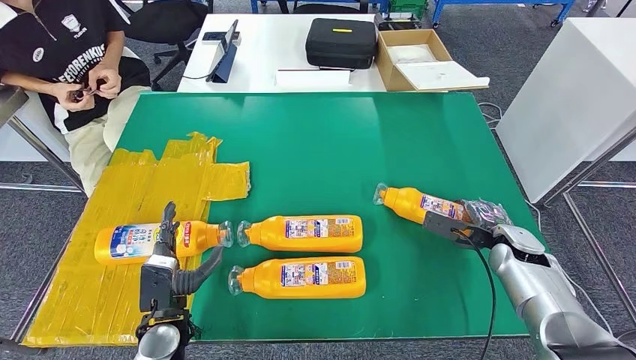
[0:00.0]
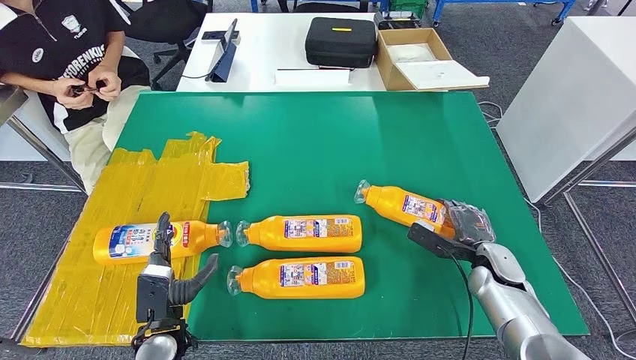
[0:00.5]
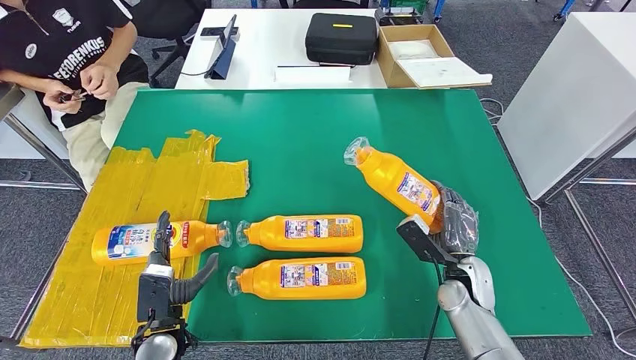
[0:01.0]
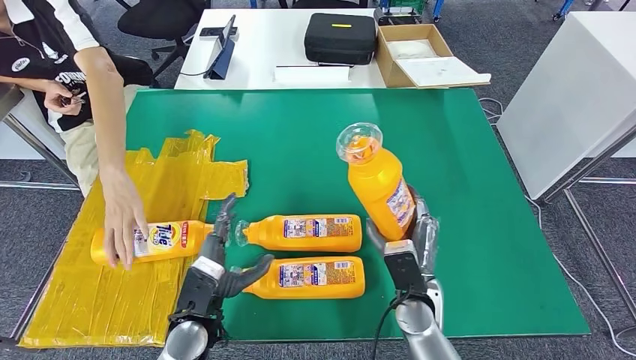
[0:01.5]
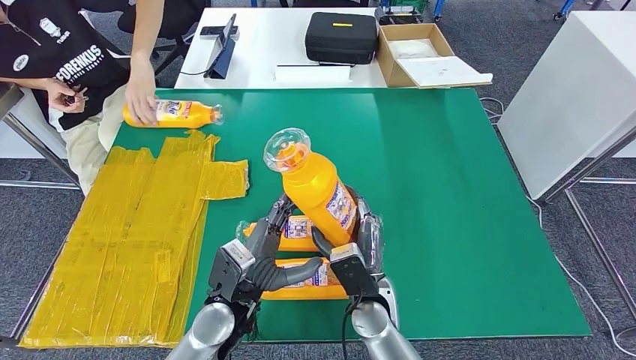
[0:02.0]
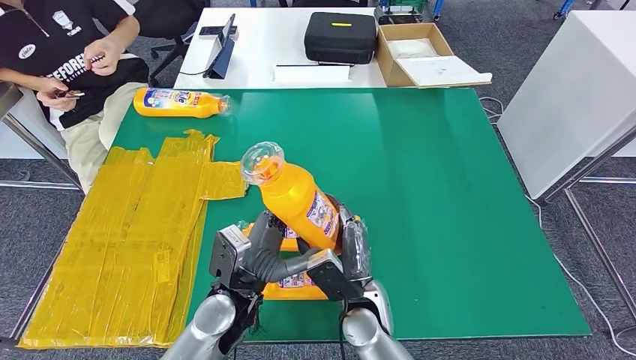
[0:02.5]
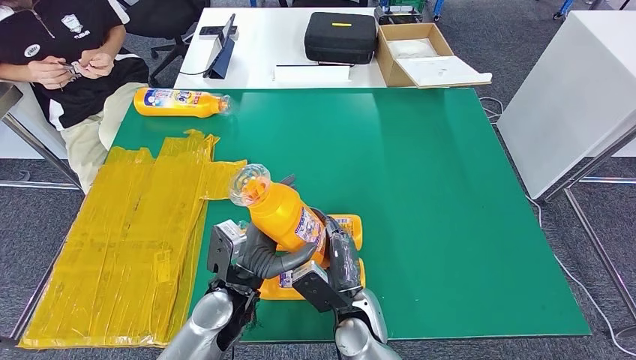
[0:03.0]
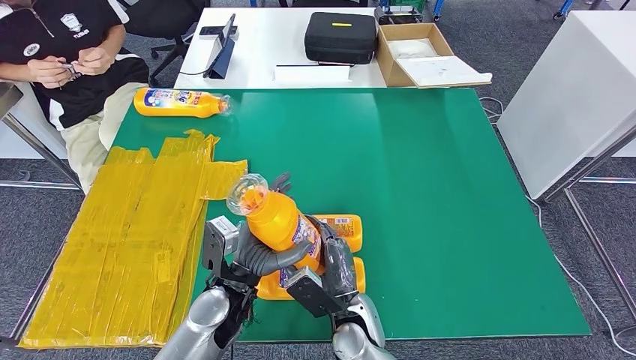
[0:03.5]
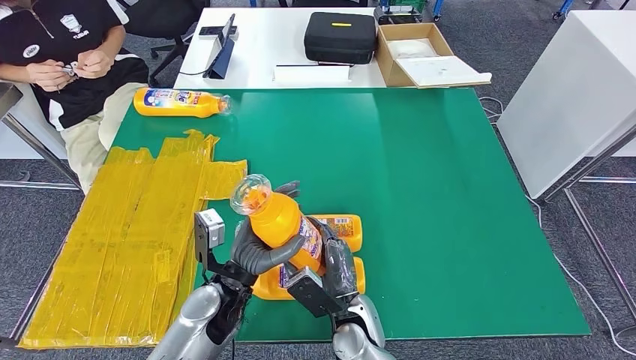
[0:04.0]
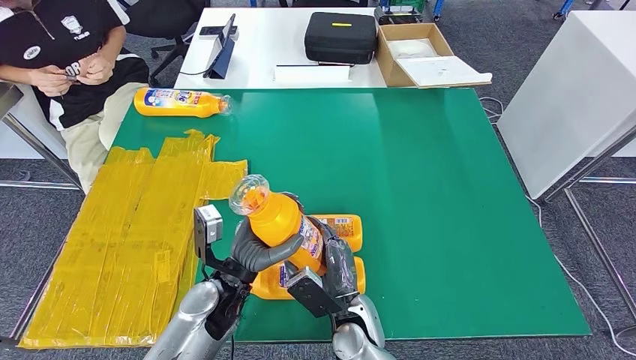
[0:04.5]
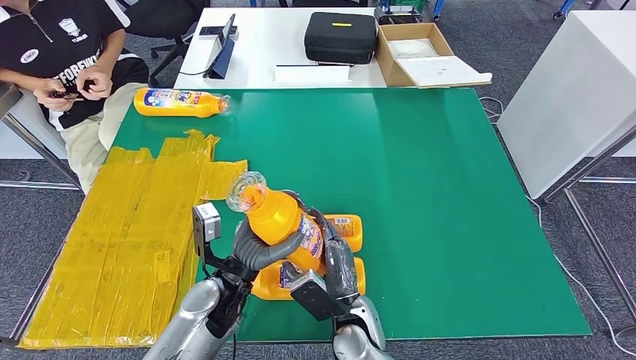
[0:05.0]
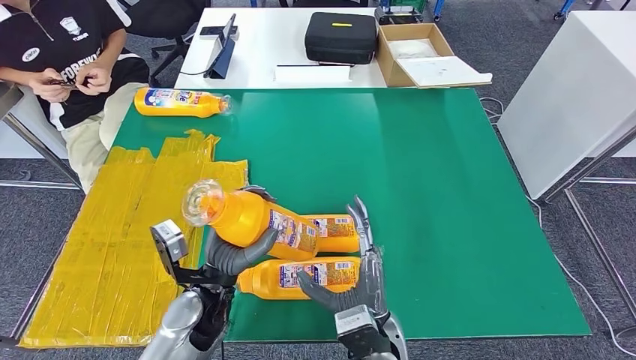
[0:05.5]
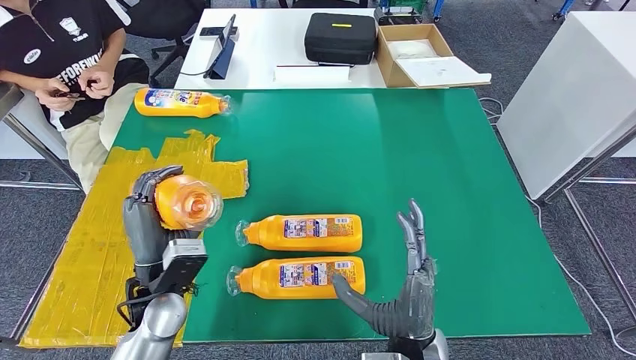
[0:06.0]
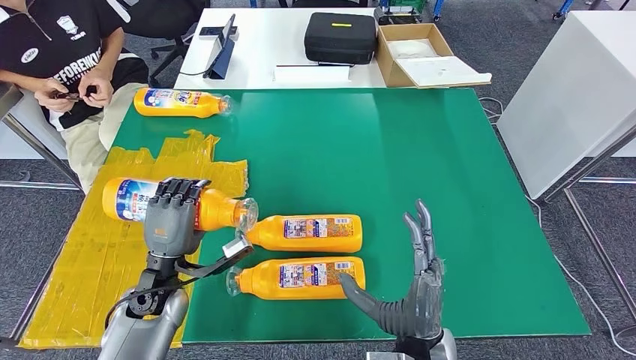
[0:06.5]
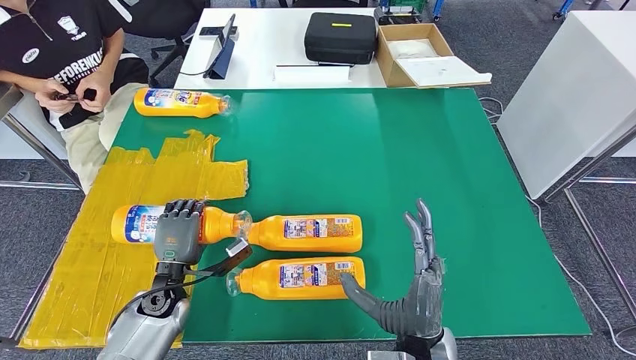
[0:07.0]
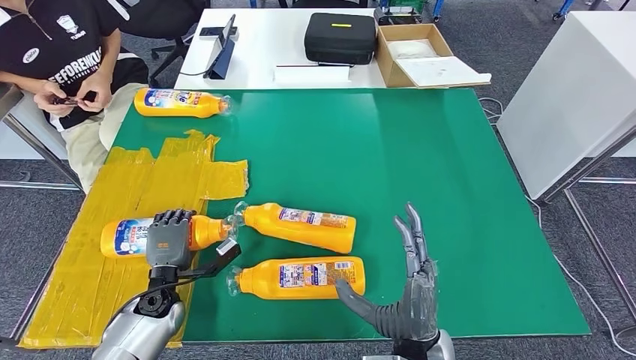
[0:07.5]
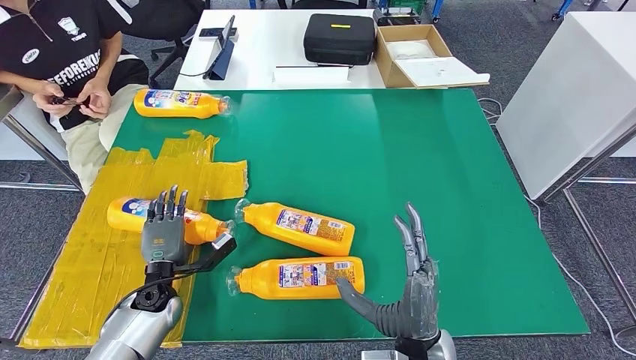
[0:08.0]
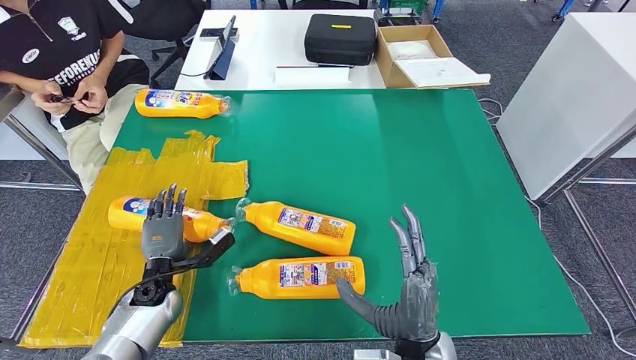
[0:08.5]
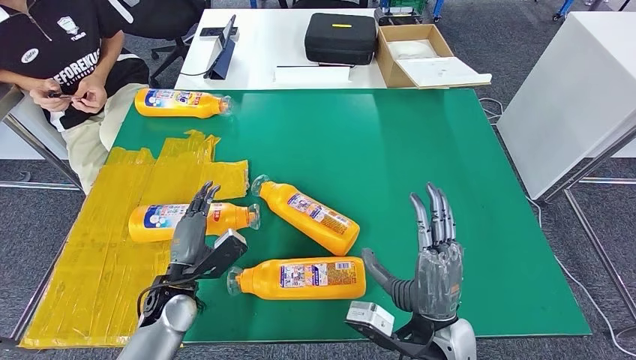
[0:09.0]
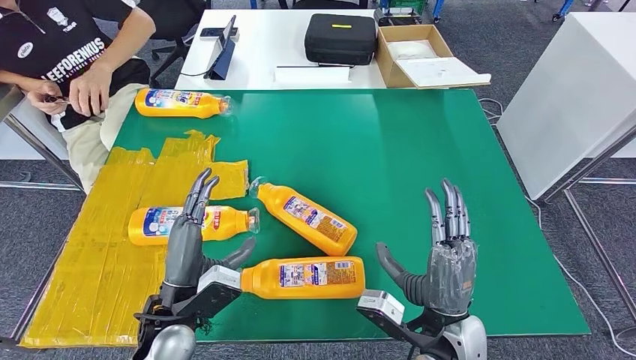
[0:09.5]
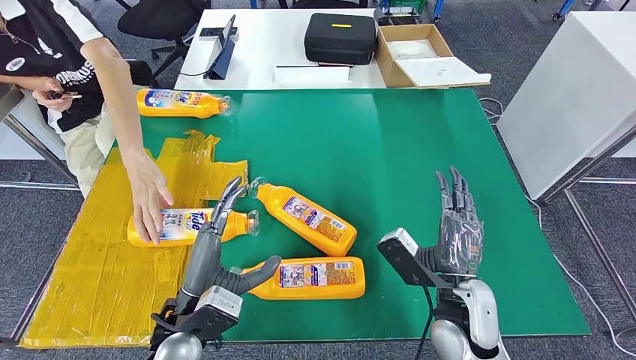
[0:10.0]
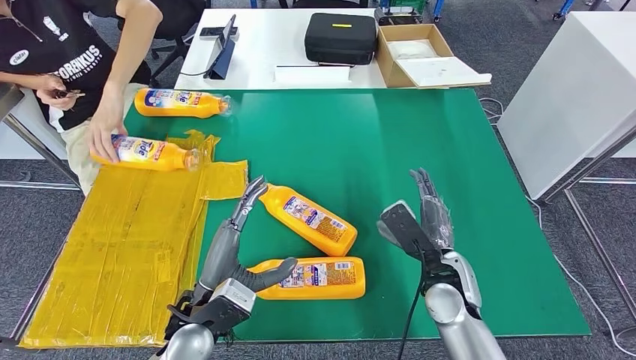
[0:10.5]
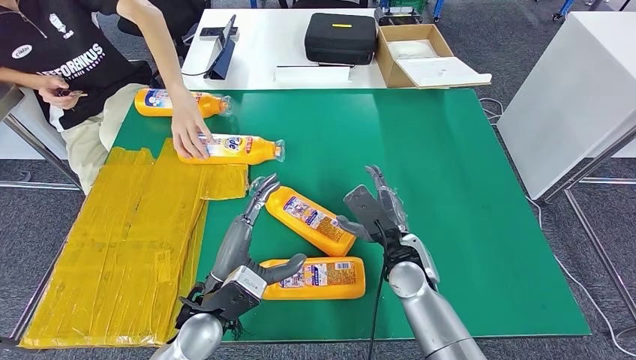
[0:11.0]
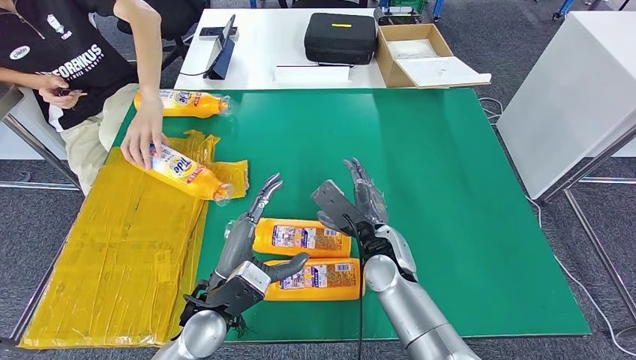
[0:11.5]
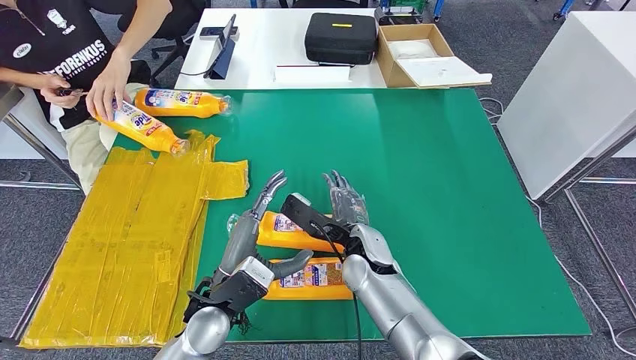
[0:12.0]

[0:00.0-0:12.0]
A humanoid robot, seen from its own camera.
Step, 0:00.0 to 0:02.0: Pick up the fast-moving consumer goods bottle from the table.
Step, 0:02.5 to 0:07.5: Flip the fast-moving consumer goods bottle to the front side.
0:02.0 to 0:04.0: The right hand changes place by some 5 cm.
0:04.0 to 0:06.0: The left hand moves to the left, some 10 cm. Meanwhile the right hand goes approximately 10 cm upward, to the right and backward.
0:06.0 to 0:08.0: The left hand goes approximately 15 cm downward and to the left.

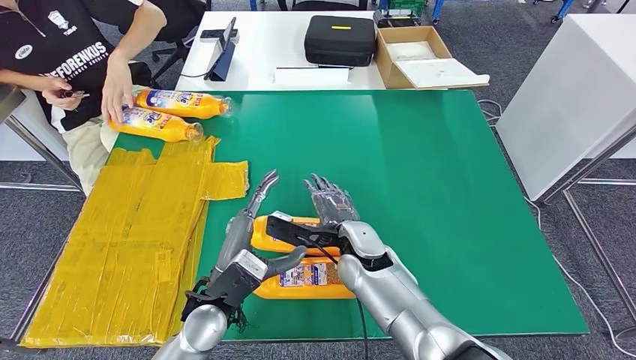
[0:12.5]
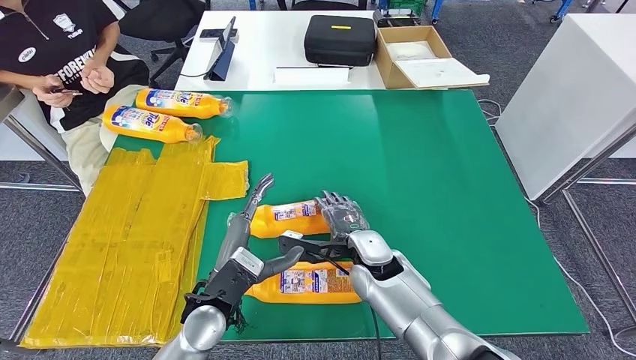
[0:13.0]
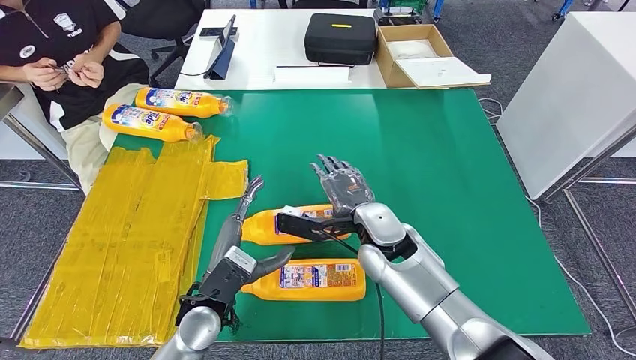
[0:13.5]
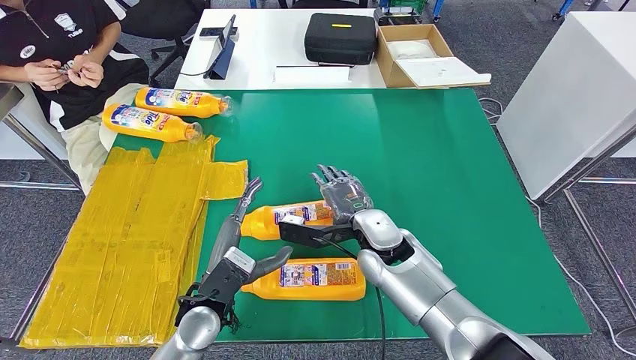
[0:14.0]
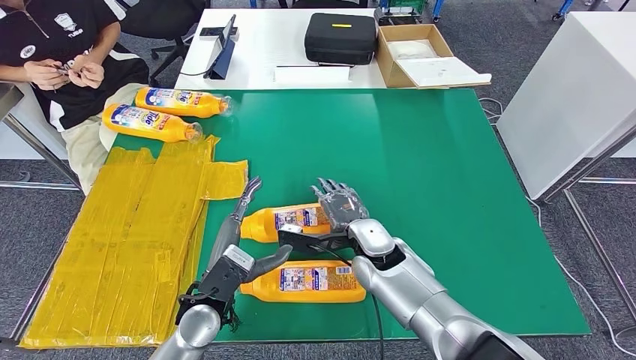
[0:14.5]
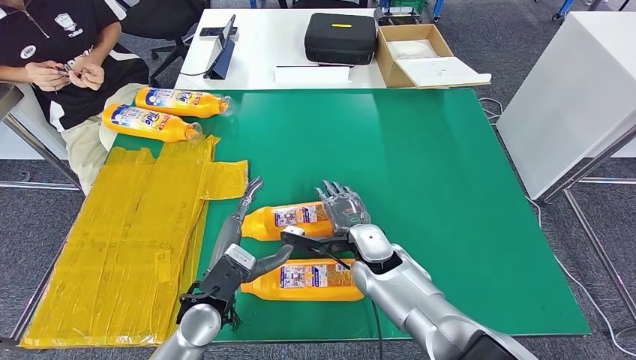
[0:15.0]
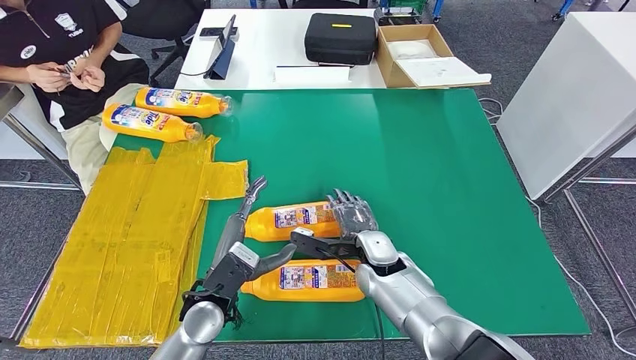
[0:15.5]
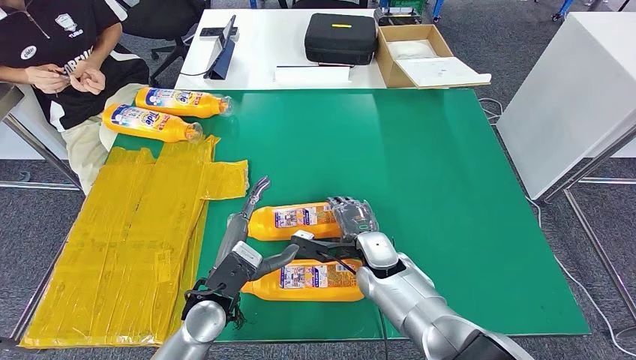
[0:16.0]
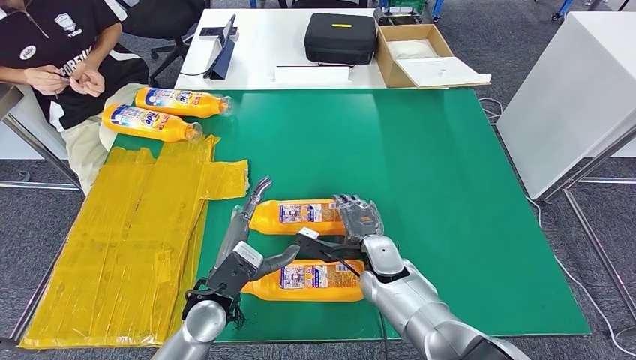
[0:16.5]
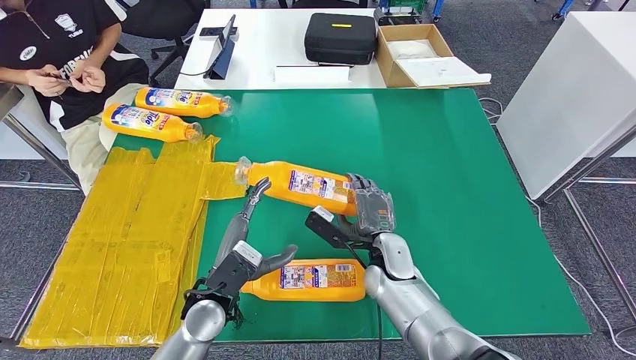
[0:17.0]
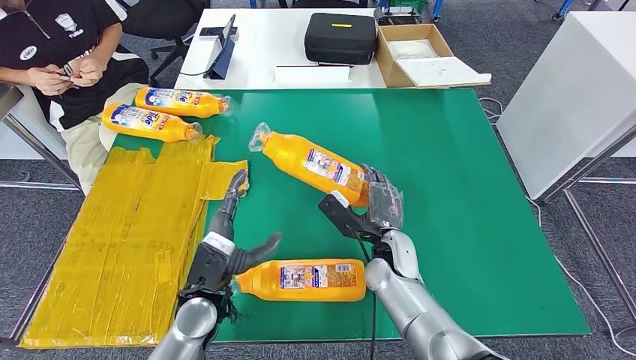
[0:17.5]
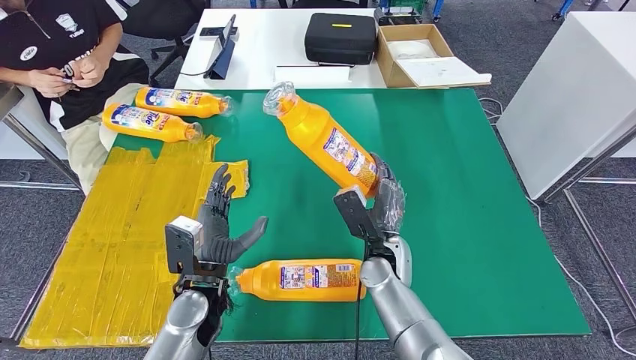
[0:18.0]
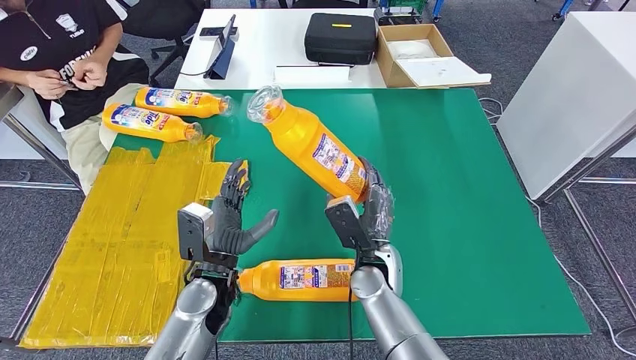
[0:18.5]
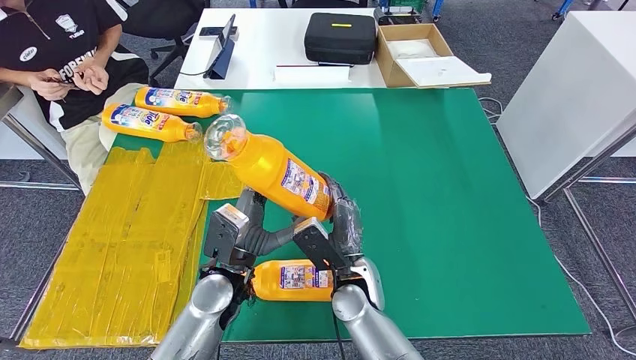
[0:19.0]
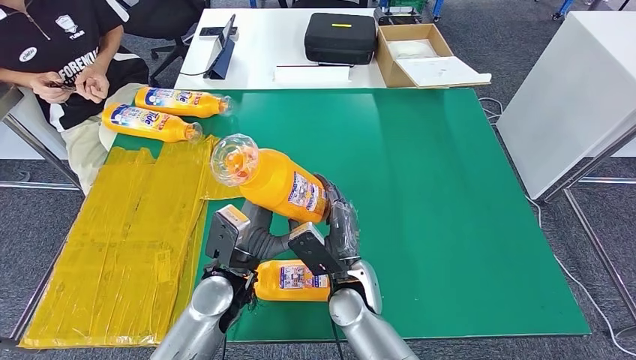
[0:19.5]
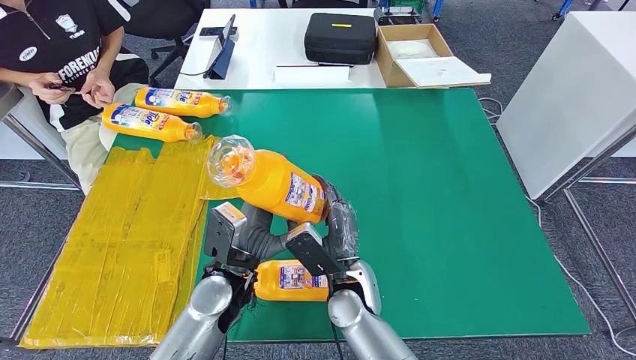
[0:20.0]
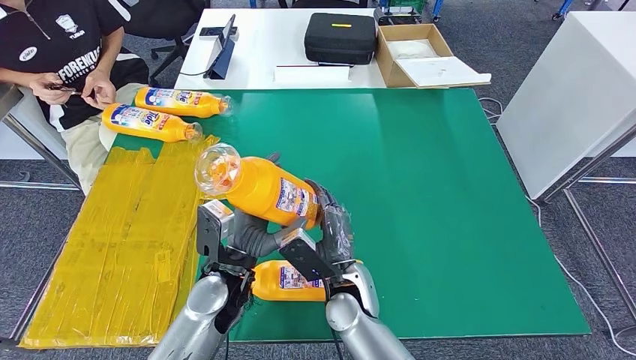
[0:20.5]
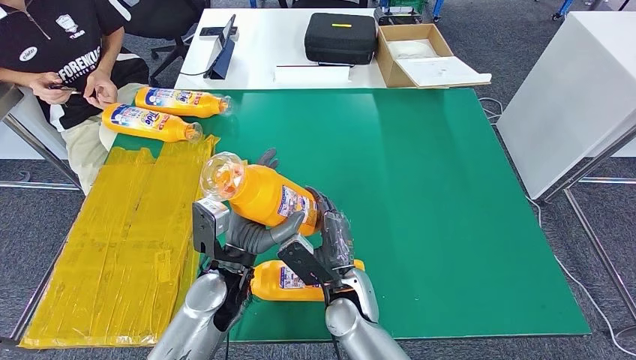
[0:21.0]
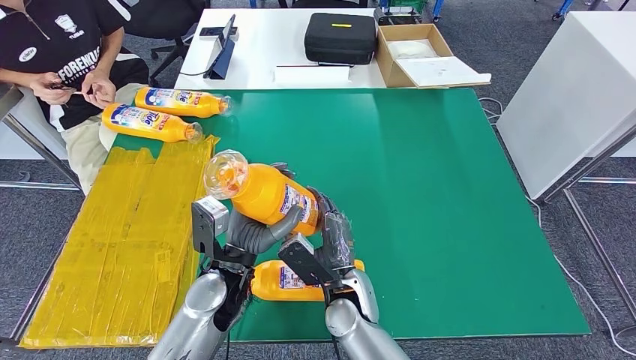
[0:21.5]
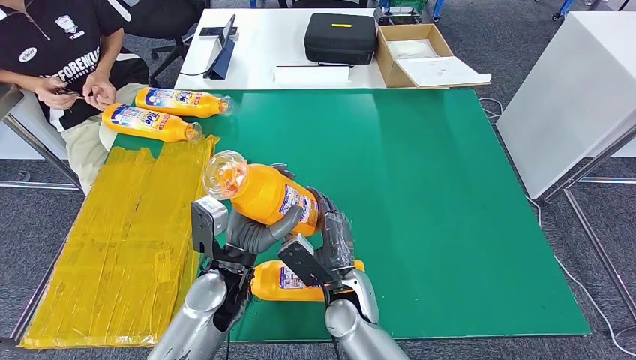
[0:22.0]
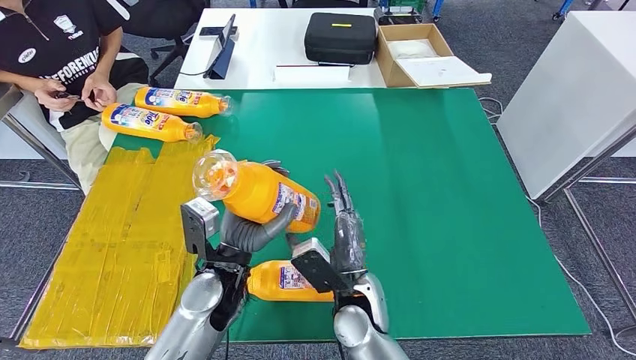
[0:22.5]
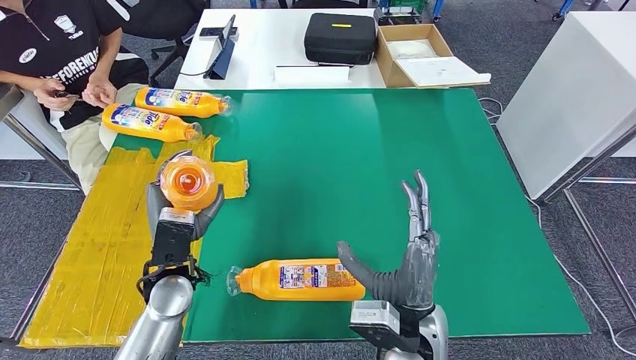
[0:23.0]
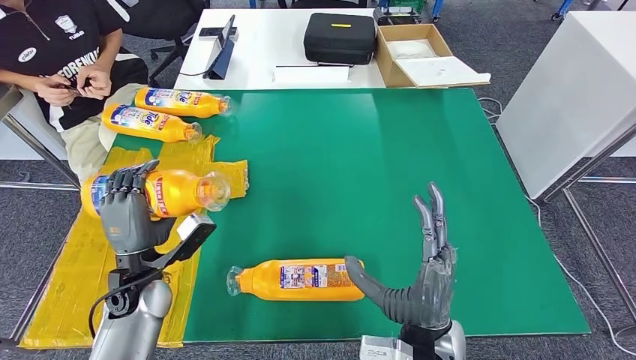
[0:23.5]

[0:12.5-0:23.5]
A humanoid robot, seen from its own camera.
Step, 0:12.5 to 0:18.0: Pick up the fast-moving consumer goods bottle from the table.
0:12.5 to 0:16.0: There are only small adjustments of the hands.
0:18.0 to 0:20.0: The right hand is displaced to the left and backward by some 10 cm; the left hand moves roughly 5 cm.
0:20.0 to 0:21.5: The hands move only a little.
0:21.5 to 0:23.5: The right hand goes roughly 15 cm to the right, upward and backward; the left hand travels to the left by approximately 15 cm.
